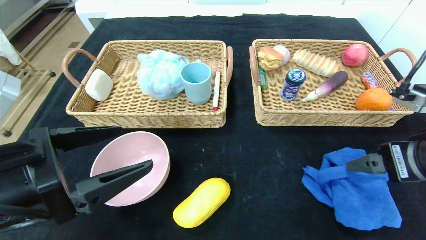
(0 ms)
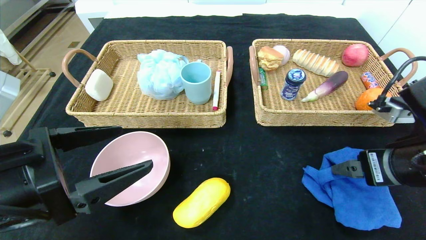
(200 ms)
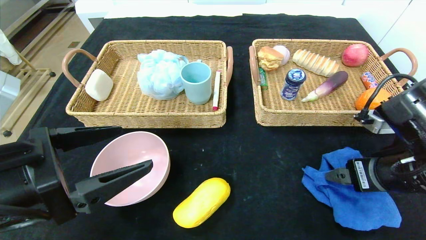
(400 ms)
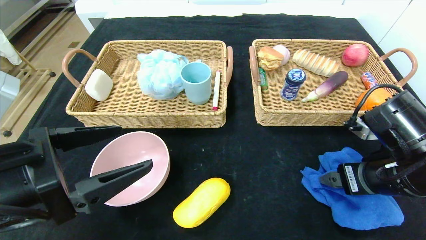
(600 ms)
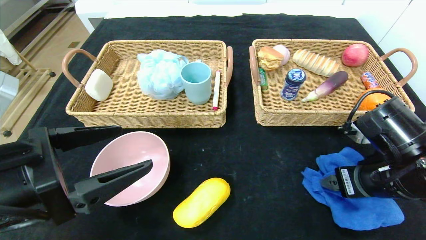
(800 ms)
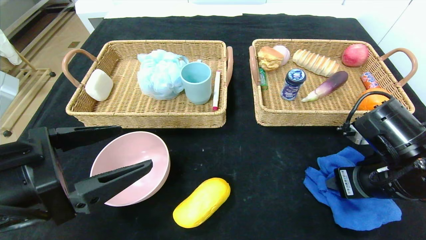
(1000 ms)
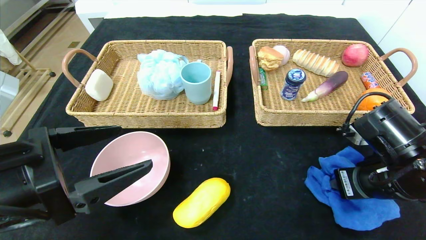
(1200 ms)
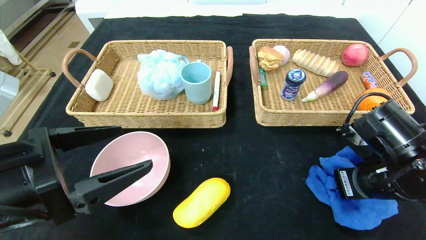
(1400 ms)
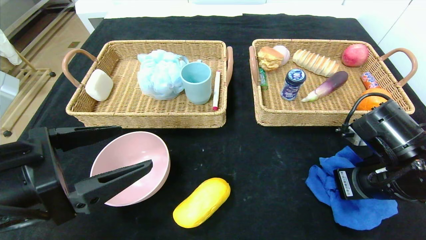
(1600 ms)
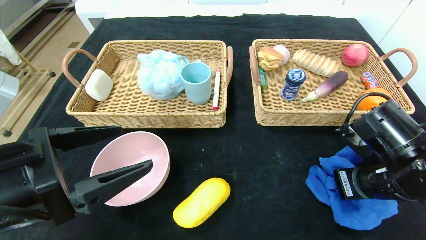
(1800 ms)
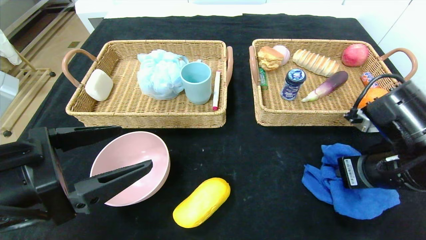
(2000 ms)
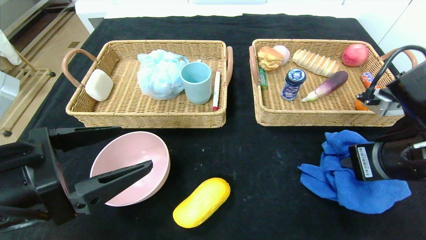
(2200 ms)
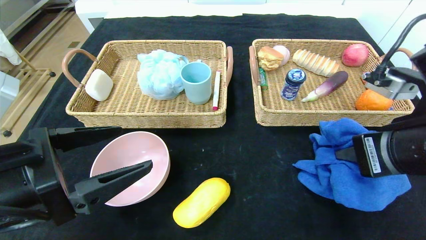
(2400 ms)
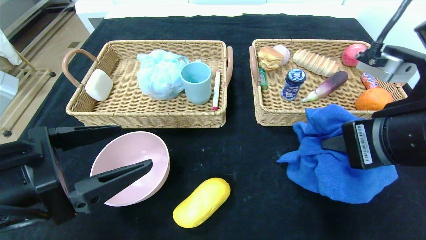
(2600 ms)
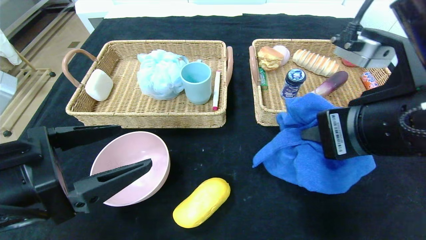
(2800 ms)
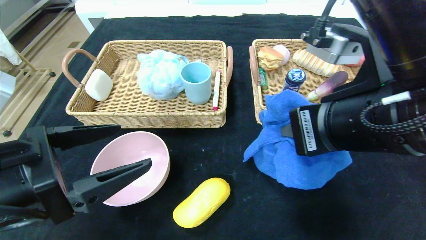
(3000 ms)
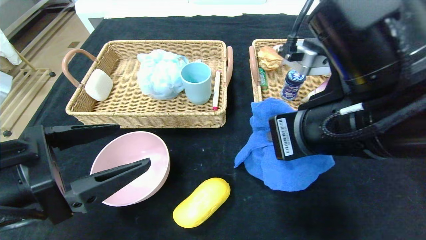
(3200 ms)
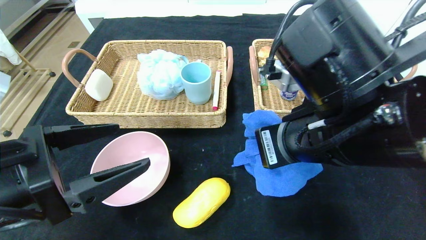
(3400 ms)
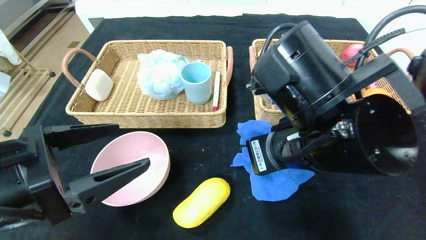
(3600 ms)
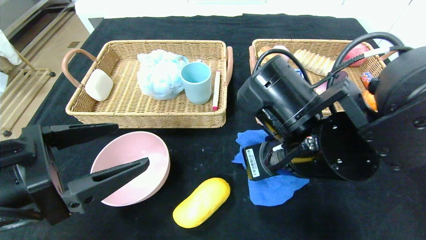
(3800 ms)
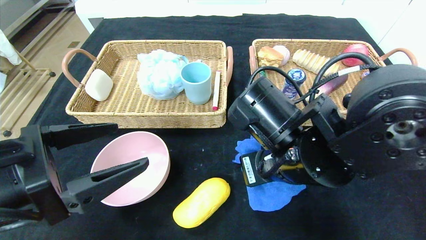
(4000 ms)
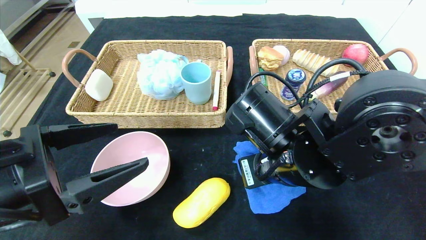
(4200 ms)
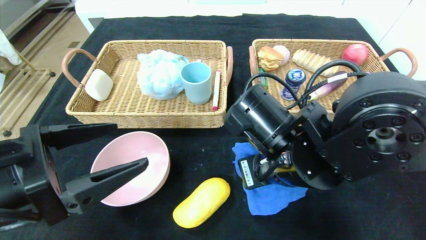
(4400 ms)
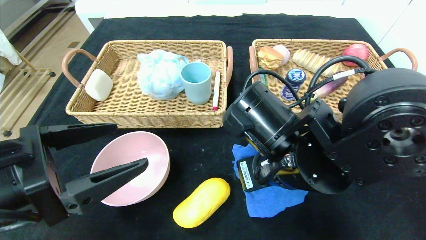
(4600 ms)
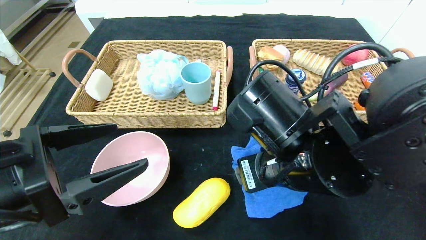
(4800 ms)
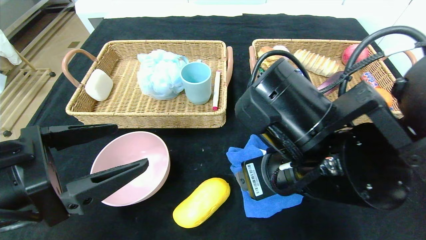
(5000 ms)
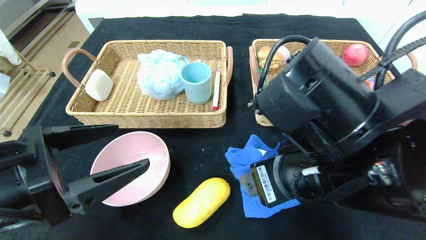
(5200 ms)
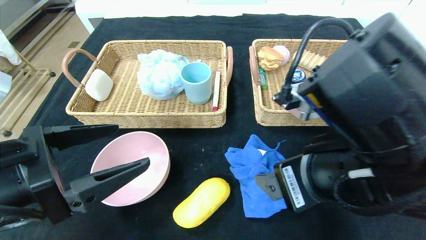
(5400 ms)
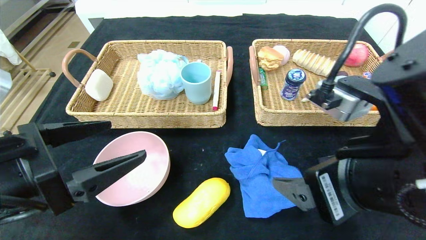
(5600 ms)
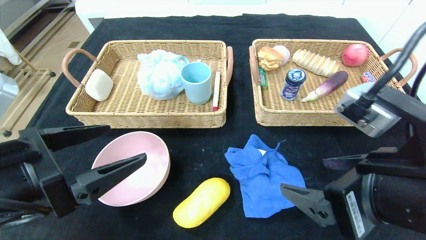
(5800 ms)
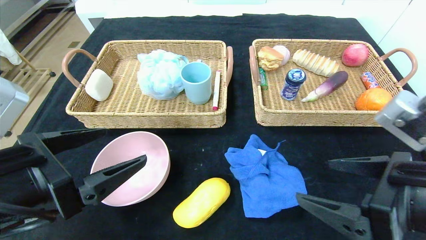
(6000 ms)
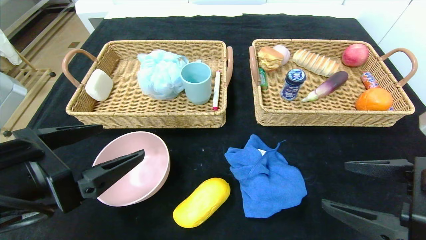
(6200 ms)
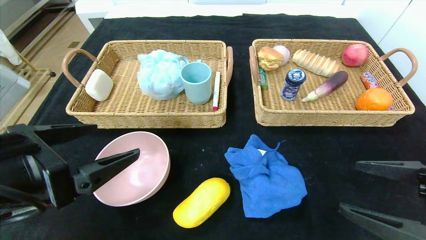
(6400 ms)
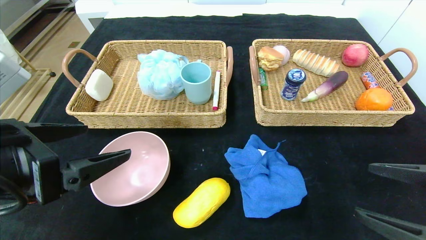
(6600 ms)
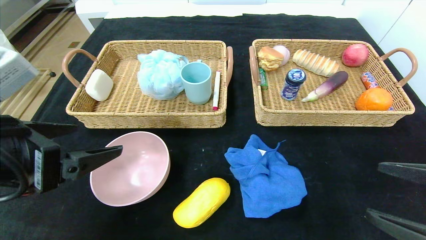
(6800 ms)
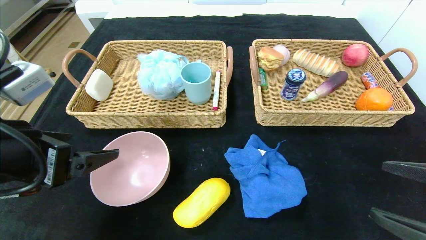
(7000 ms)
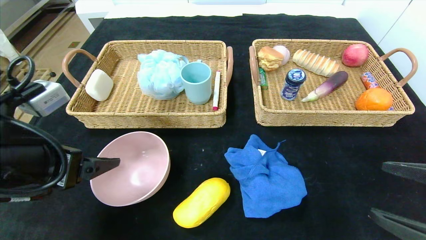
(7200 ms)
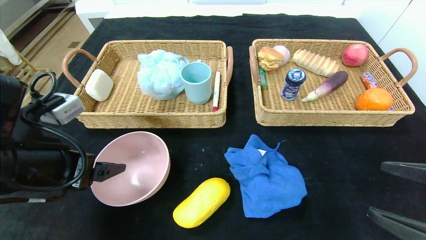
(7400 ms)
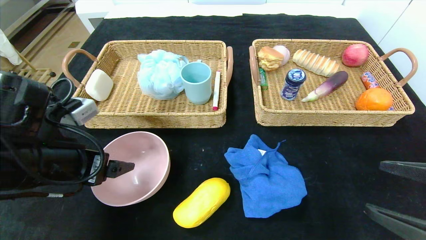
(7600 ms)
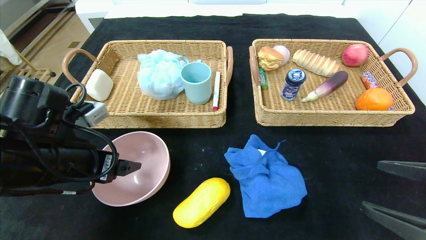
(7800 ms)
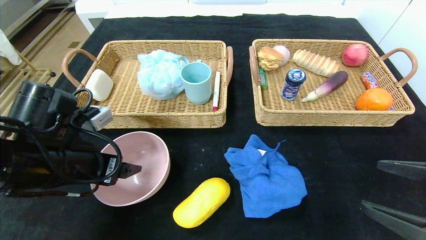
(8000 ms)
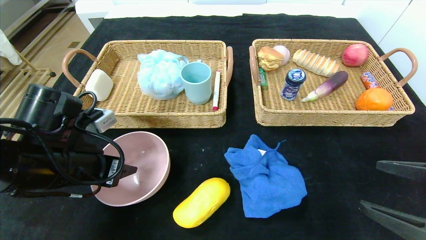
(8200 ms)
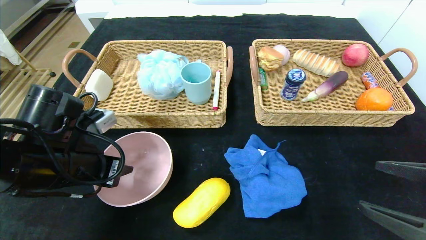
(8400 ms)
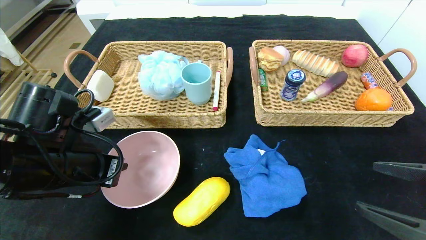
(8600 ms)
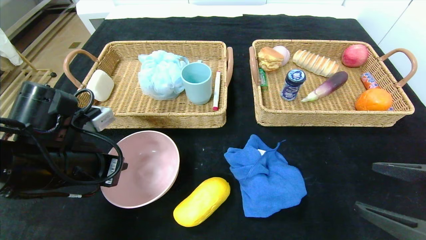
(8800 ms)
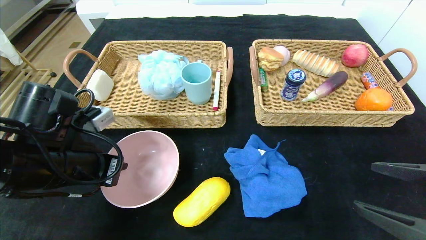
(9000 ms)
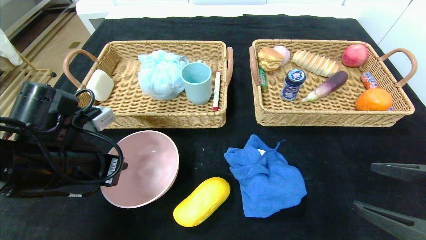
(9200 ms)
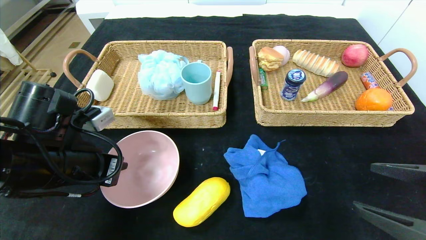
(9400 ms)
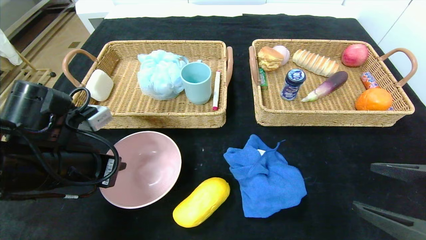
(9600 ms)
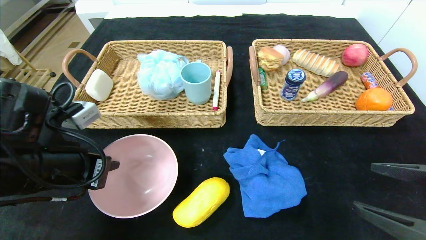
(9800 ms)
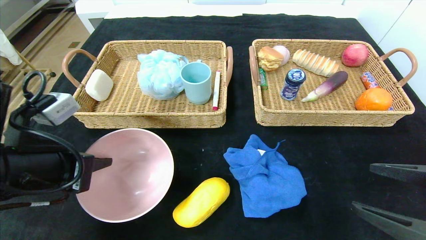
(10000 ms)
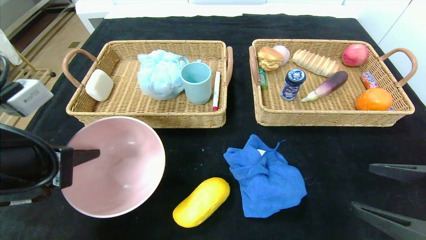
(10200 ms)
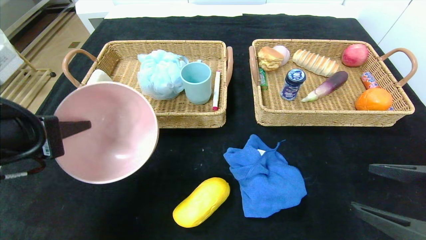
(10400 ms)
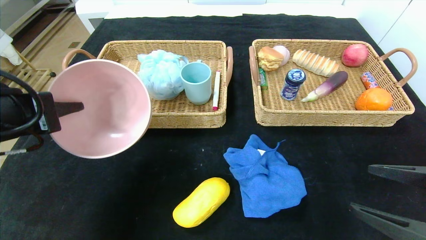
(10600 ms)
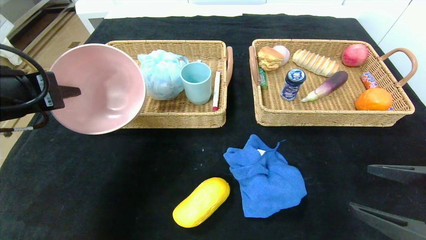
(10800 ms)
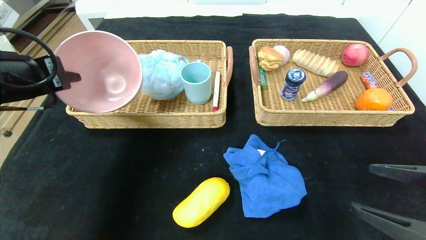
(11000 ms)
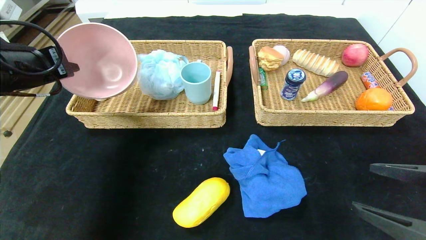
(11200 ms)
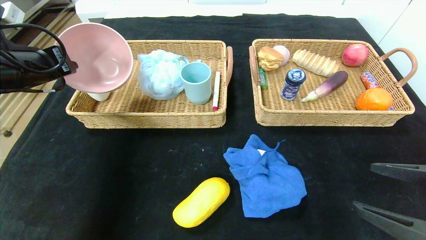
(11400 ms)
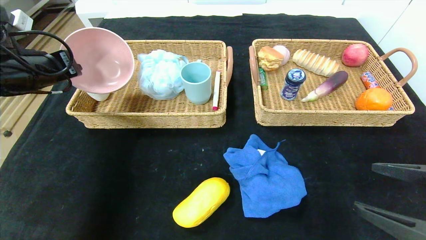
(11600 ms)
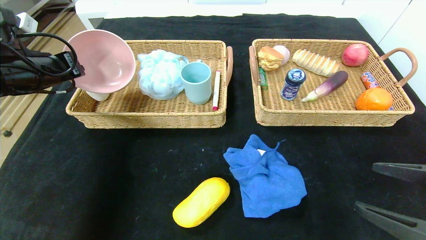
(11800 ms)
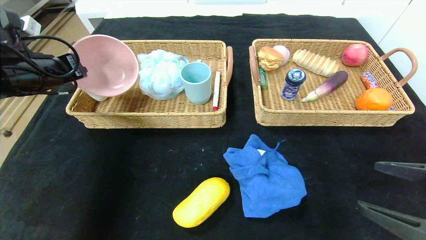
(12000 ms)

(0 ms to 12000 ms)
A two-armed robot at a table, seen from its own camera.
Step, 0 ms - 5200 ms: Place the blue towel in the center of the table.
0 ms - 1600 ms: The right gripper is displaced downward by approximately 5 cm, and closes its fingers.
1600 ms - 3000 ms: The right gripper moves upward and to the left, roughly 15 cm.
3000 ms - 4400 ms: The right gripper goes roughly 10 cm downward, to the left and forward, and opens.
4400 ms - 6000 ms: The right gripper goes some 15 cm to the right and backward, and opens its fingers.
6000 ms - 7600 ms: The left gripper heads forward, covering about 10 cm. Meanwhile the right gripper heads to the right, covering roughly 10 cm.
7600 ms - 9000 ms: The left gripper closes.
9000 ms - 10400 ms: The left gripper moves upward and backward, roughly 10 cm.
10400 ms - 12000 ms: The left gripper heads forward and to the left, covering some 20 cm.

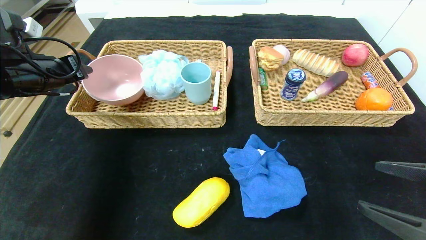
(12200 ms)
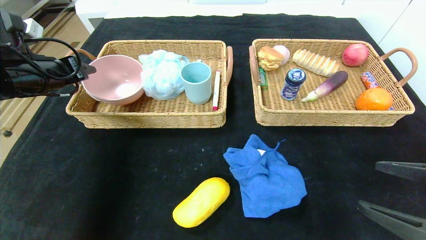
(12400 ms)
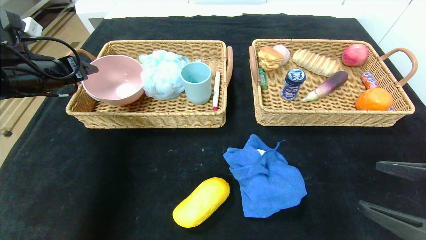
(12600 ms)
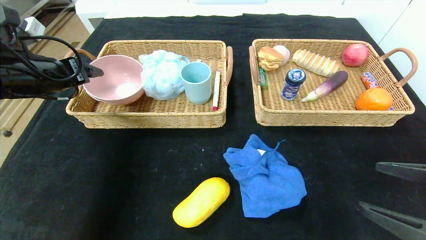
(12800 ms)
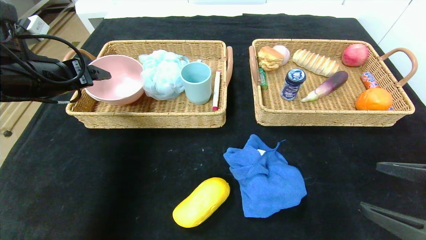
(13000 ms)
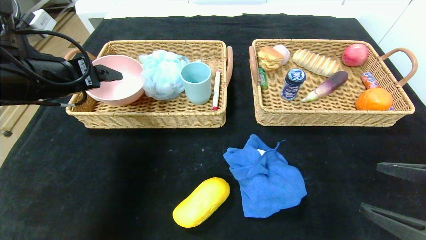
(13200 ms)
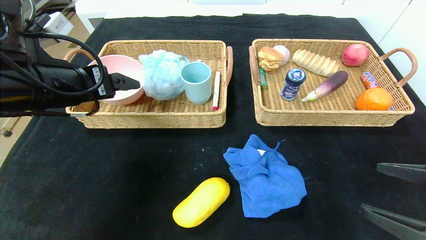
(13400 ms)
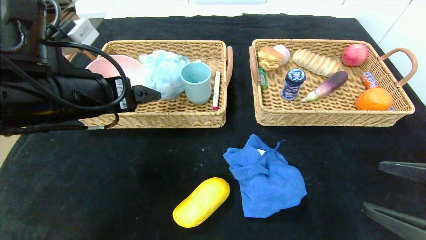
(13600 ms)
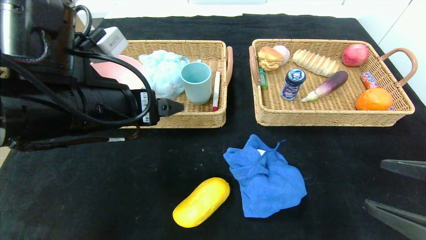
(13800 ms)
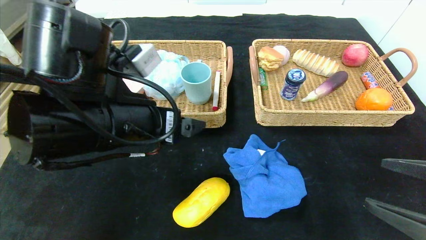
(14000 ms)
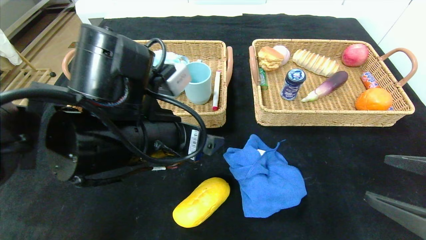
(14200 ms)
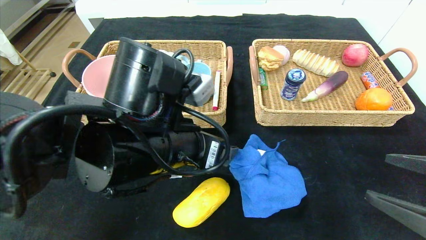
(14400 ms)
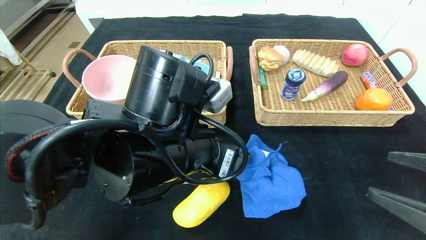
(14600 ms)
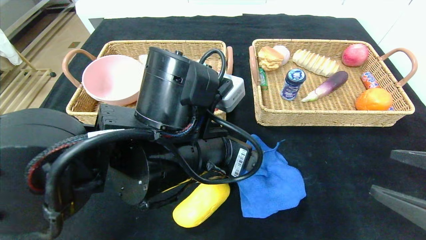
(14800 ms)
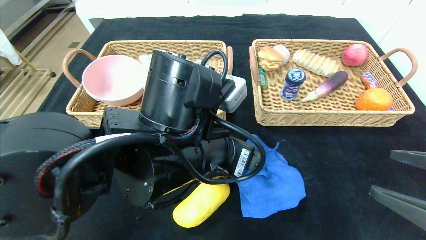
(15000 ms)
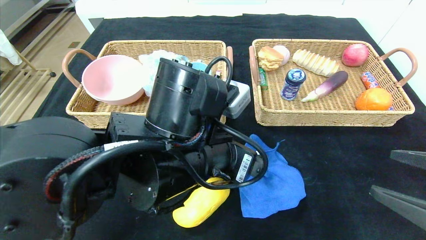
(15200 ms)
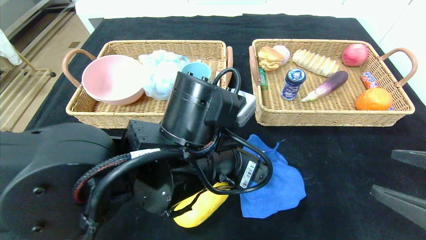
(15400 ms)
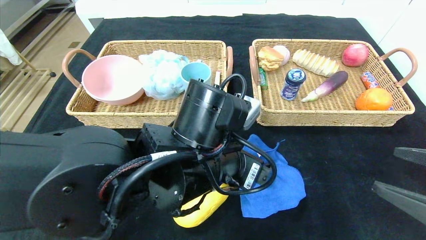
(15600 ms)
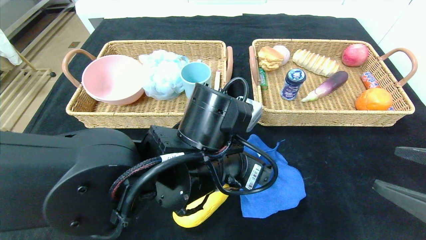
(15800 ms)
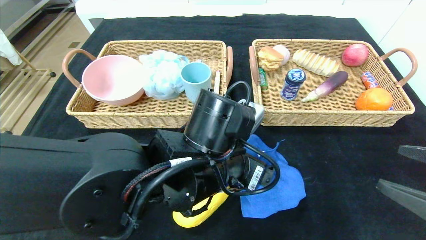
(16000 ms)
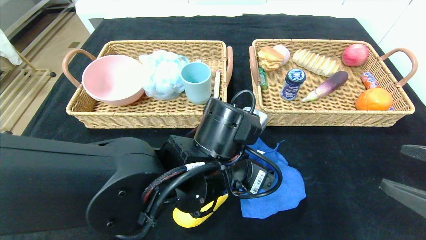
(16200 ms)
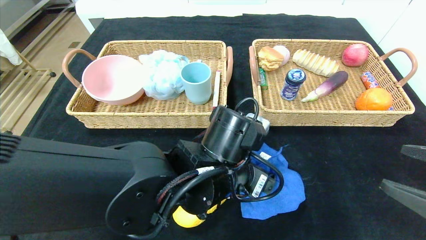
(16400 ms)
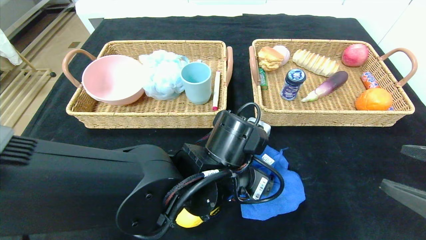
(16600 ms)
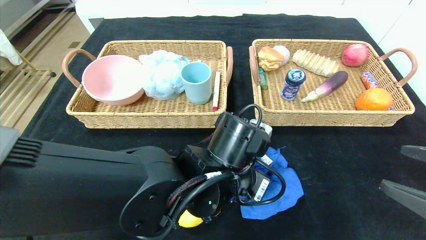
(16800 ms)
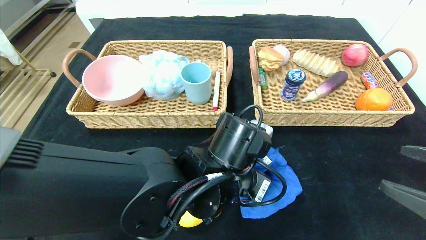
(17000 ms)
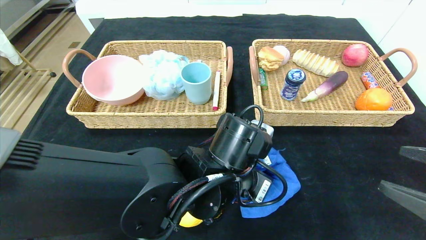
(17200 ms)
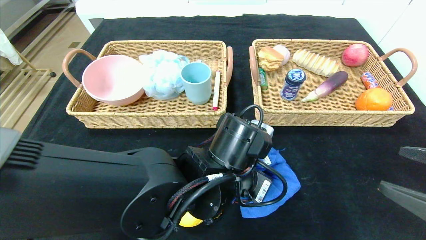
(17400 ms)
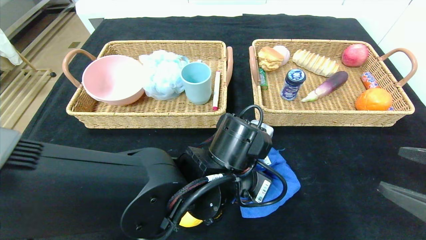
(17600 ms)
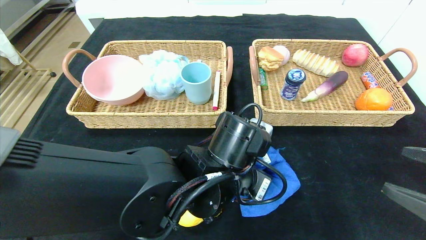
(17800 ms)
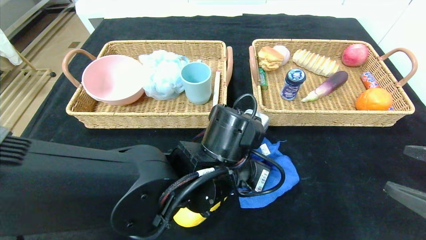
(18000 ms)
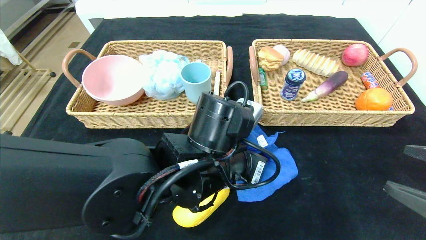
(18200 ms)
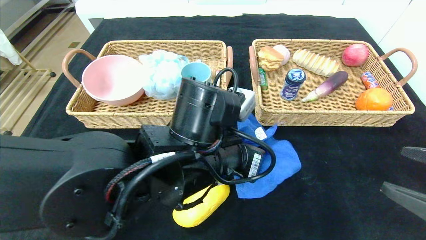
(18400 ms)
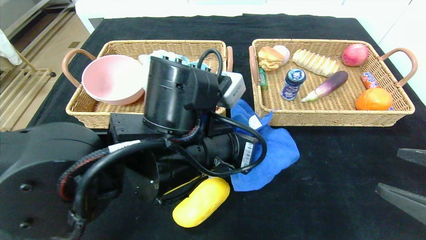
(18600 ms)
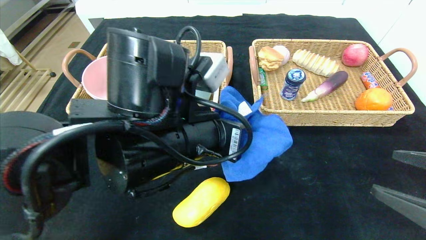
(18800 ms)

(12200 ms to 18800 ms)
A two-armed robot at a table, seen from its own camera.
12200 ms - 13800 ms: The left gripper heads to the right and backward, covering about 20 cm, and opens its fingers.
13800 ms - 15400 ms: The left gripper shifts roughly 15 cm to the right and downward.
15400 ms - 17200 ms: The left gripper is displaced downward by some 5 cm, and closes up.
17200 ms - 18800 ms: The left gripper shifts roughly 10 cm upward and to the left.
